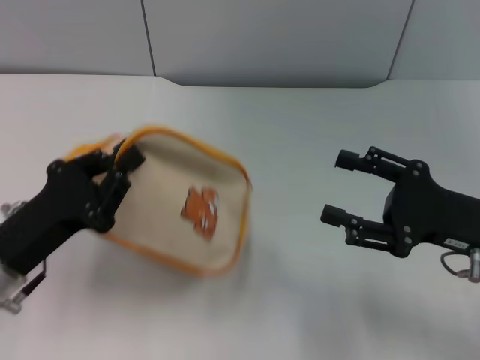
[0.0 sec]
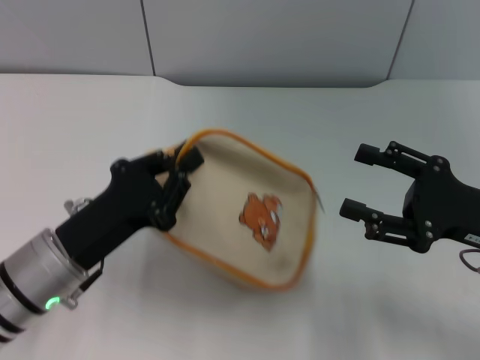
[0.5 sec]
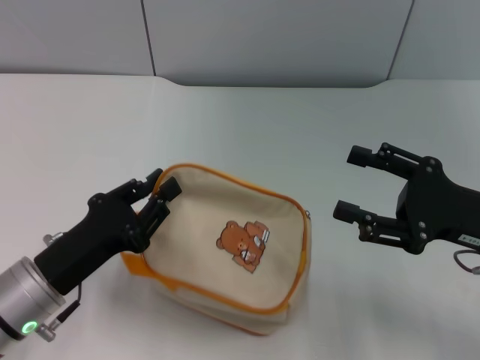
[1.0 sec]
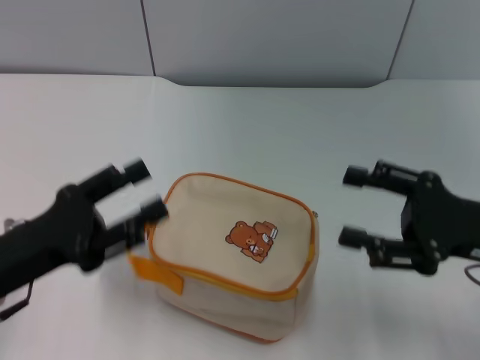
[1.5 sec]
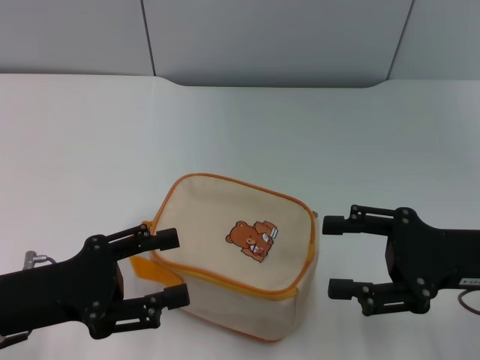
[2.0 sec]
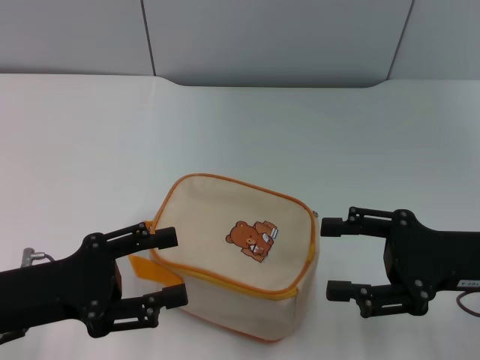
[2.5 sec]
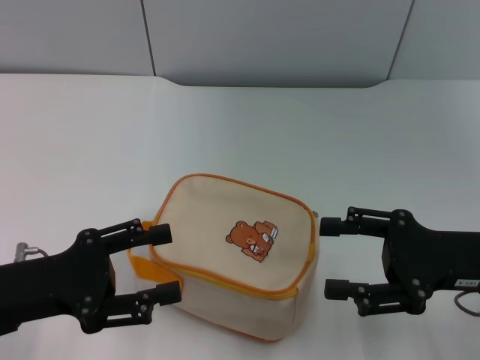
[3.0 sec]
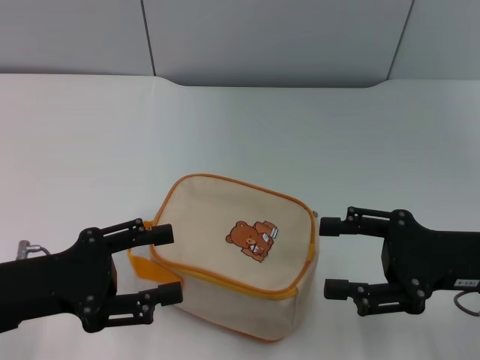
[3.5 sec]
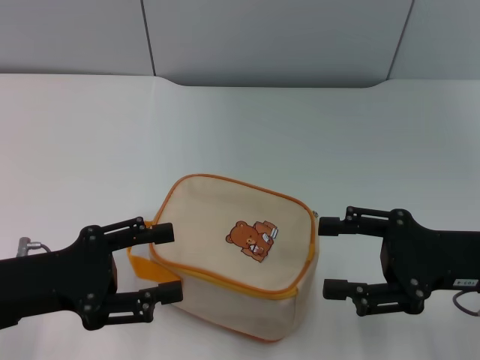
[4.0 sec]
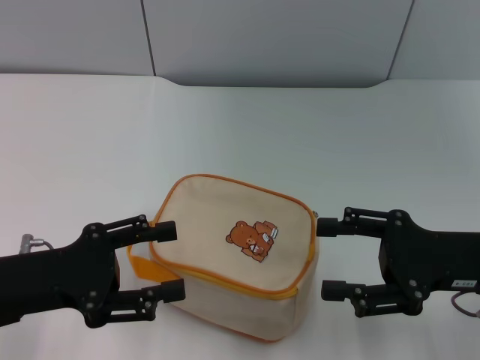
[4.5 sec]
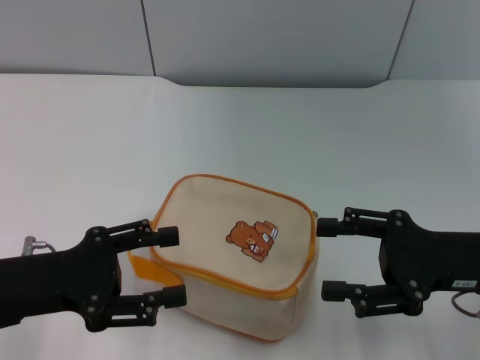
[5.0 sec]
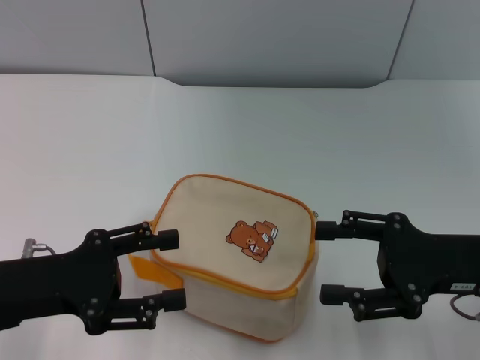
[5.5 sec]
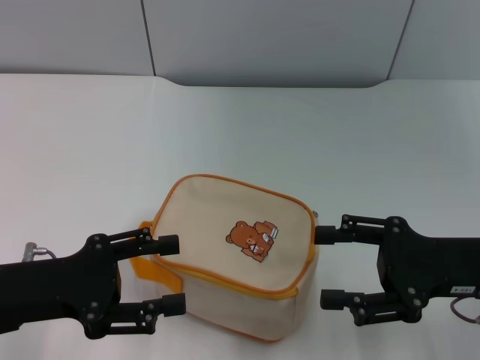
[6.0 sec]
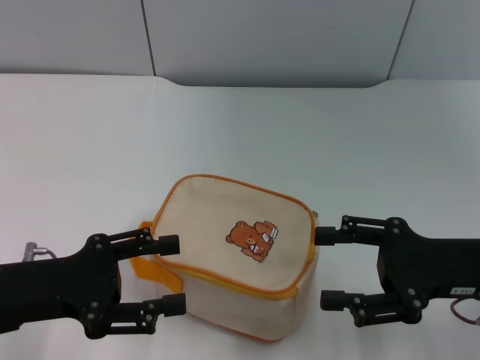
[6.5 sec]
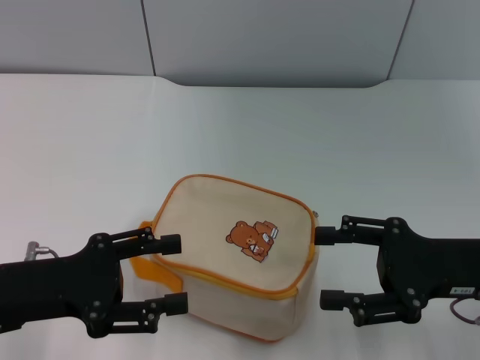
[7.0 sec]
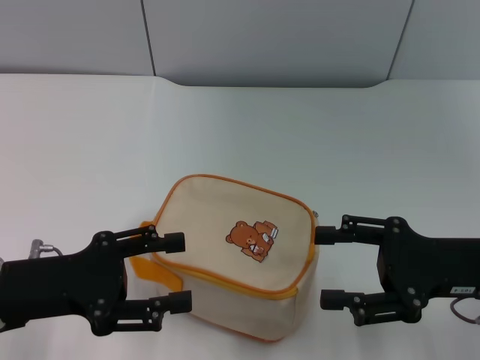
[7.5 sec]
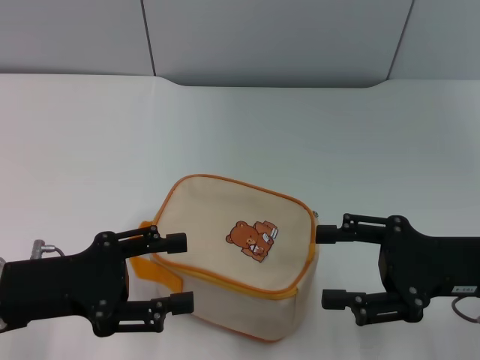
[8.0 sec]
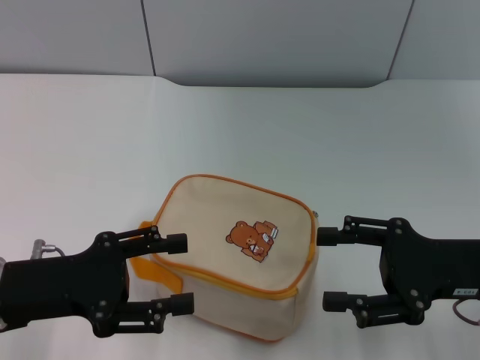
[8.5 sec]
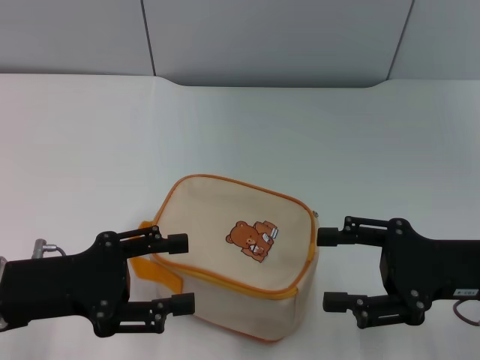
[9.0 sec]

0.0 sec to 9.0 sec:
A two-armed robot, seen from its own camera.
Step, 0.0 sec to 1.0 sec: Place the bag on the table with left gripper.
0.0 sec to 2.0 sec: The left gripper opens.
2.0 sec to 4.5 sec: The grippers move only a little.
4.5 sec to 9.0 sec: Both grippers stay put.
